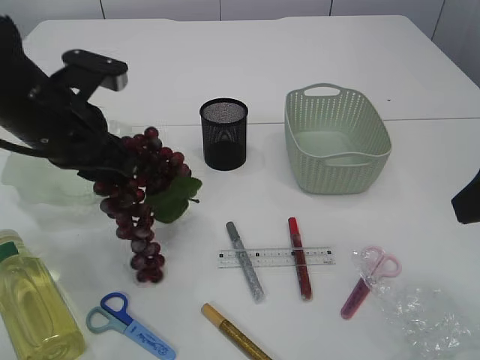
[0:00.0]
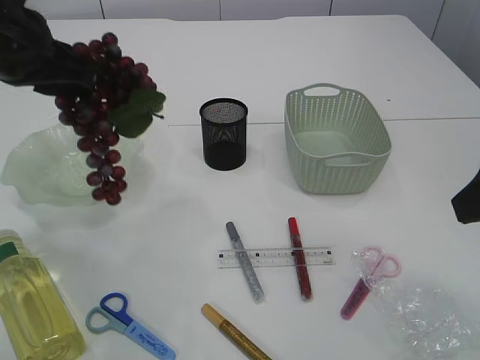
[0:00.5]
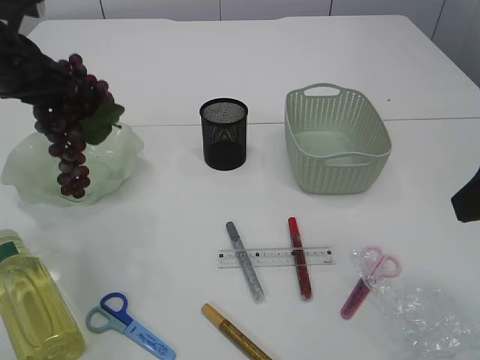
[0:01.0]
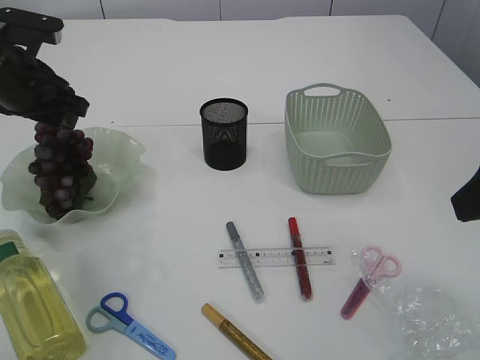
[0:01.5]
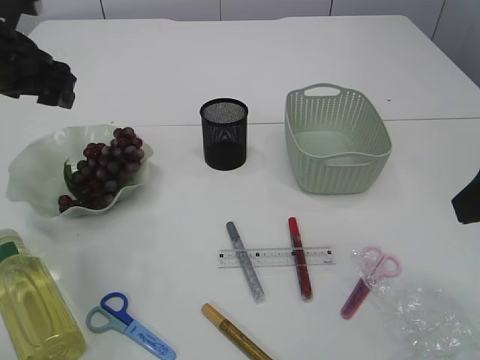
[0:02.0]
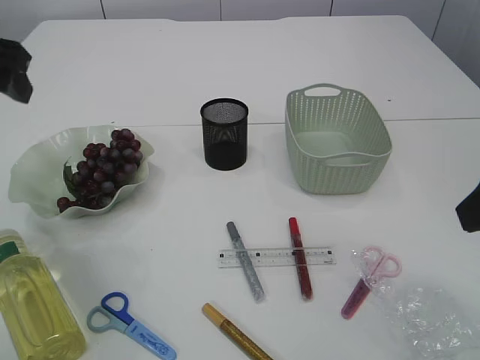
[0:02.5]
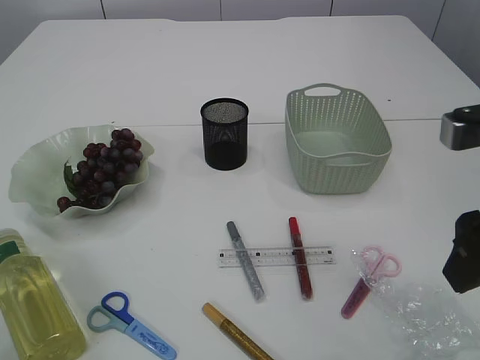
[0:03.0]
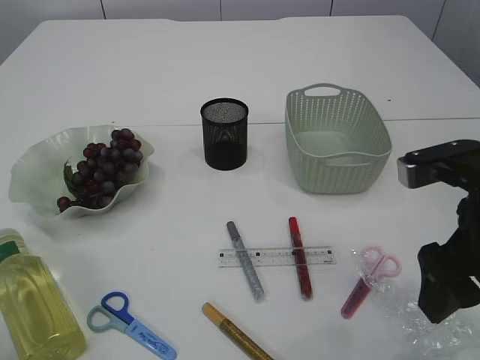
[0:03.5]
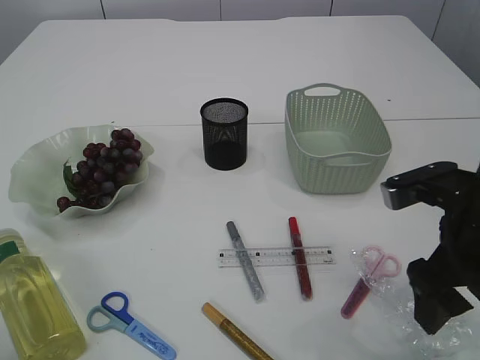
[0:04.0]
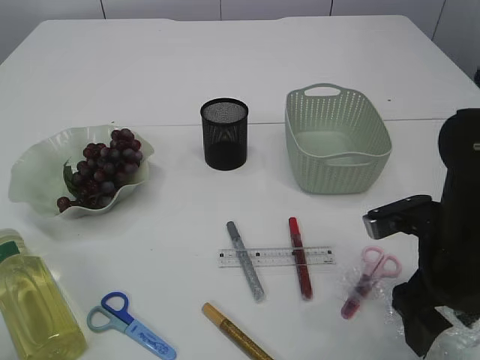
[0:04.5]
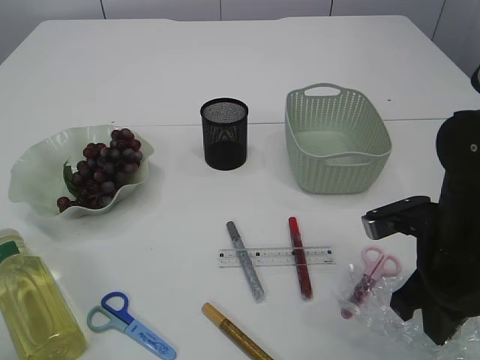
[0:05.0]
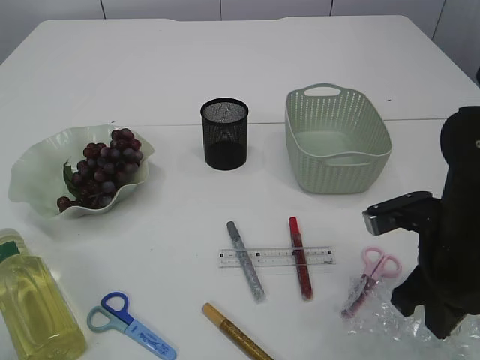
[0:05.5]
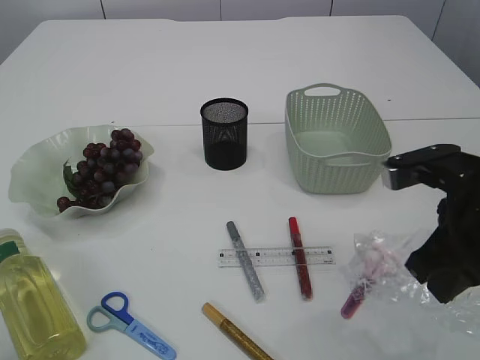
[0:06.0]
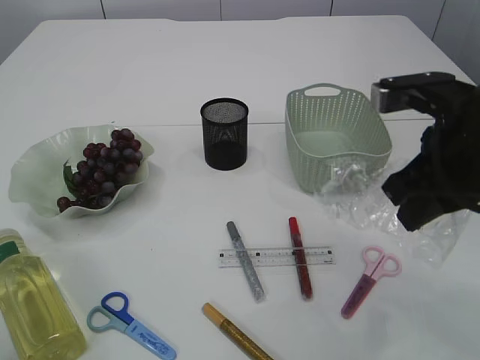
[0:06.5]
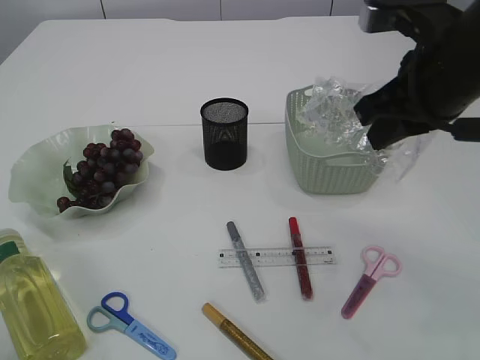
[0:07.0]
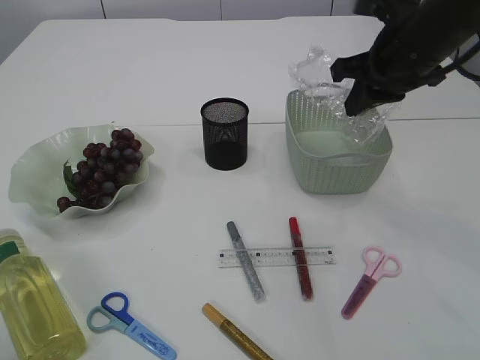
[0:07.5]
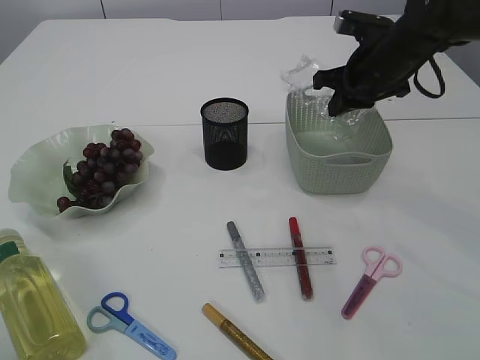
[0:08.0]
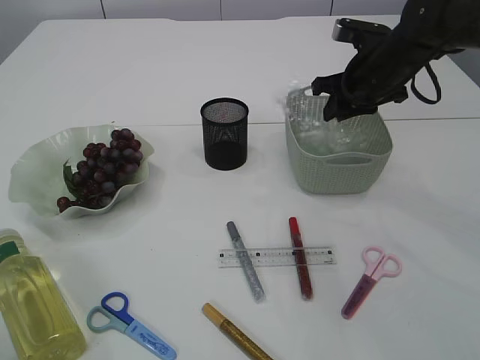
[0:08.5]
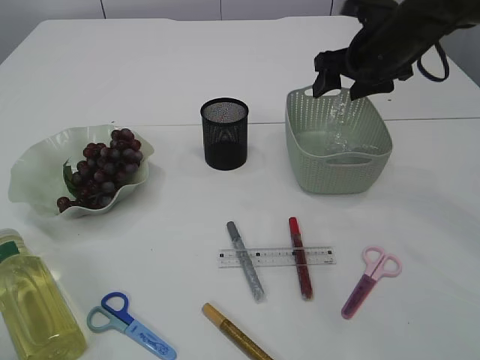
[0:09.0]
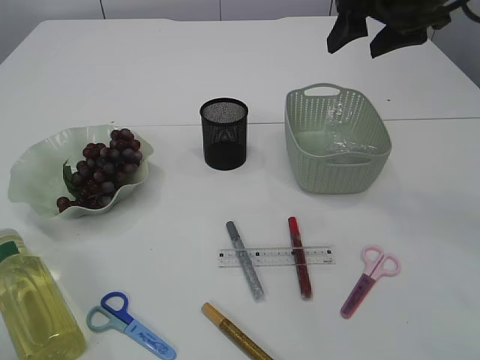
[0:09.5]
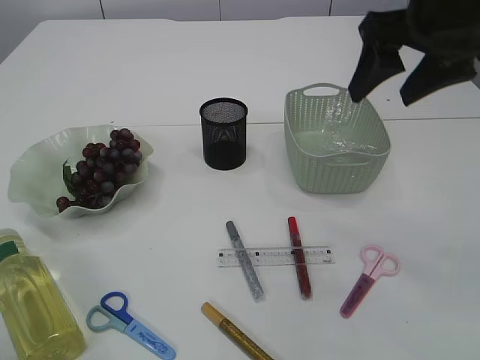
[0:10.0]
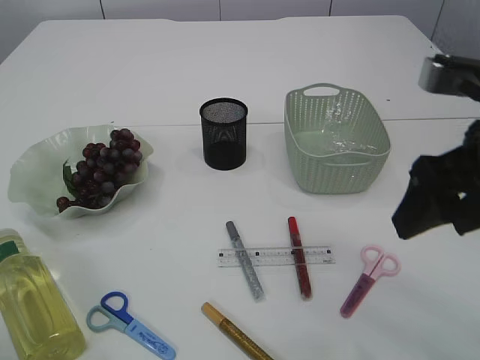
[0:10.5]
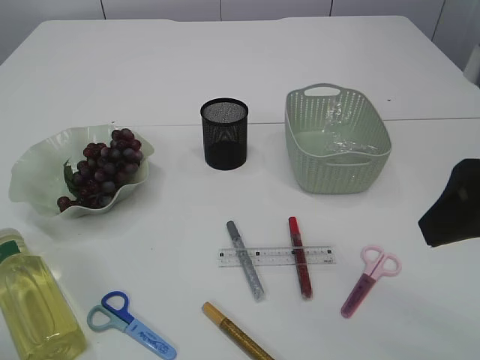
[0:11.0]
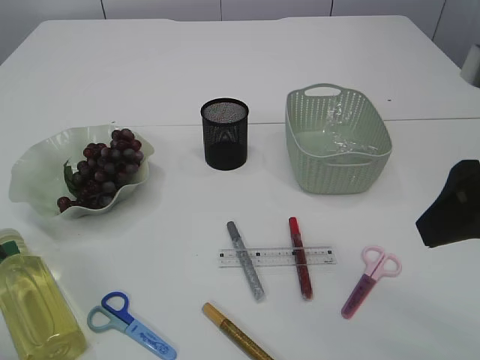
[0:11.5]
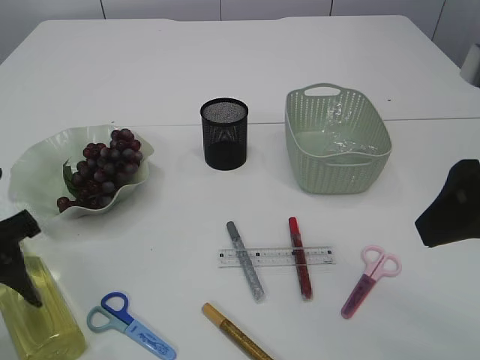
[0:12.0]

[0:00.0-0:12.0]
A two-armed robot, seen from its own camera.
Step, 0.5 to 1.5 s: Place the grapes in the plate.
Step, 2.0 to 6.0 s: Pick up the plastic.
Step, 6.5 to 9.0 s: Place the plastic in the basket.
0.0 to 2.0 s: The left gripper travels to the left and forward by roughly 10 cm, and opens.
2.0 to 4.0 s: The left gripper shifts some 15 cm backward. The right gripper goes approximately 10 cm downward.
4.0 to 6.0 s: The right gripper closes.
6.0 to 8.0 s: The right gripper travels forward by some 25 cm.
8.0 to 10.0 s: The right gripper goes approximately 20 cm backward and upward, and opens up.
10.0 to 12.0 s: The left gripper moves downward, approximately 10 cm, while the right gripper goes some 15 cm backward.

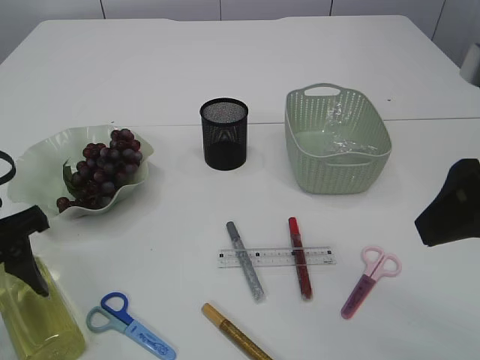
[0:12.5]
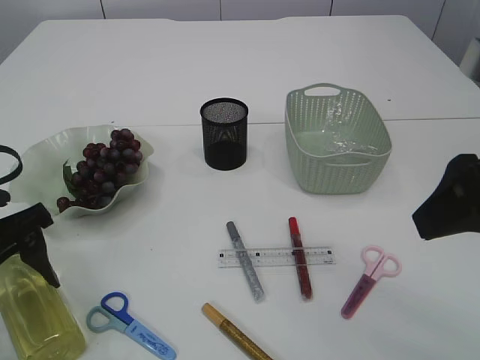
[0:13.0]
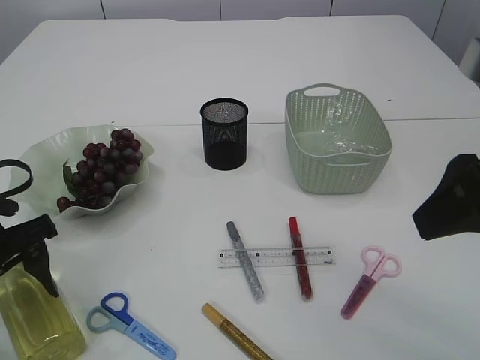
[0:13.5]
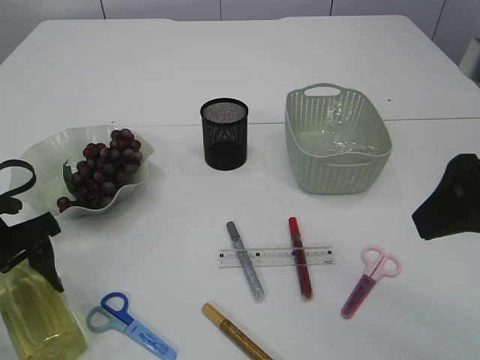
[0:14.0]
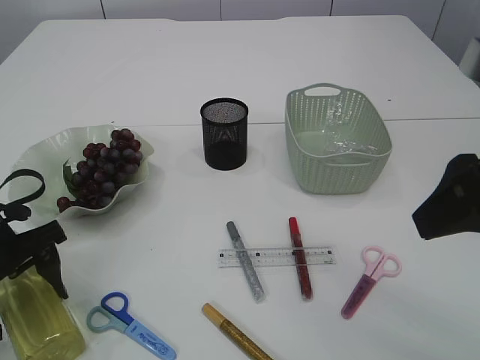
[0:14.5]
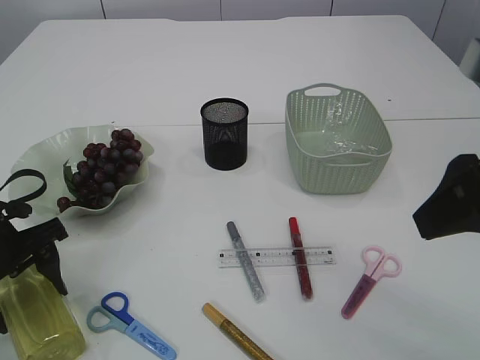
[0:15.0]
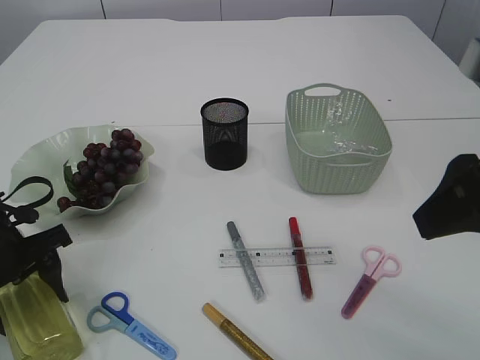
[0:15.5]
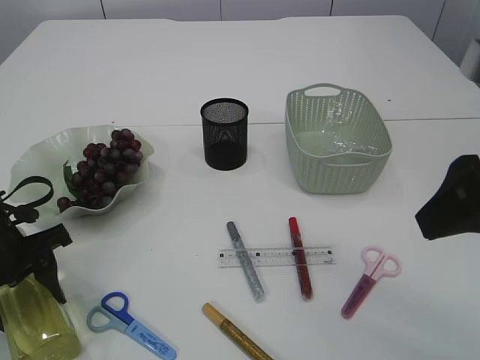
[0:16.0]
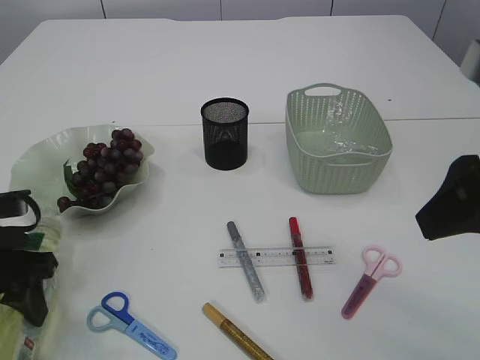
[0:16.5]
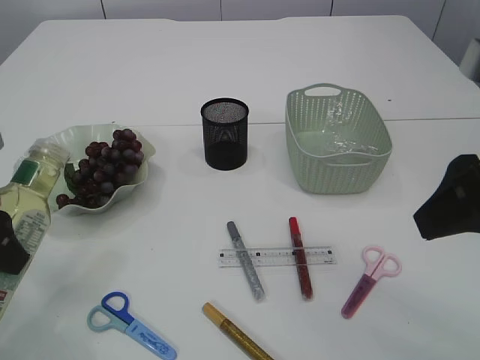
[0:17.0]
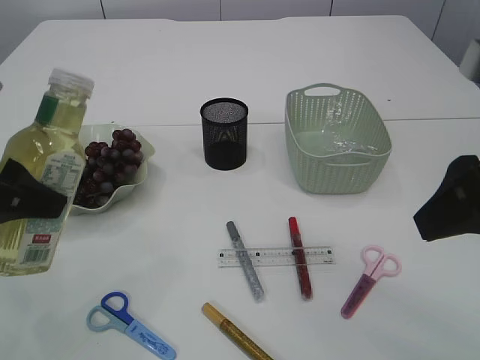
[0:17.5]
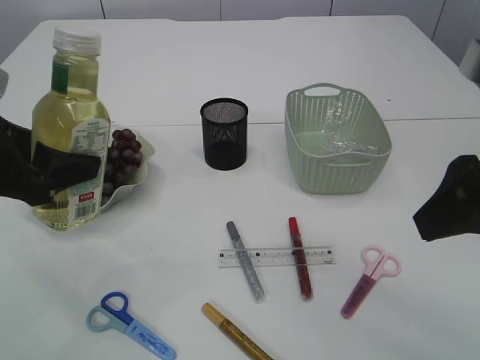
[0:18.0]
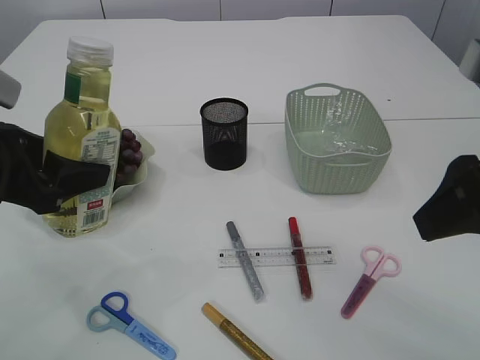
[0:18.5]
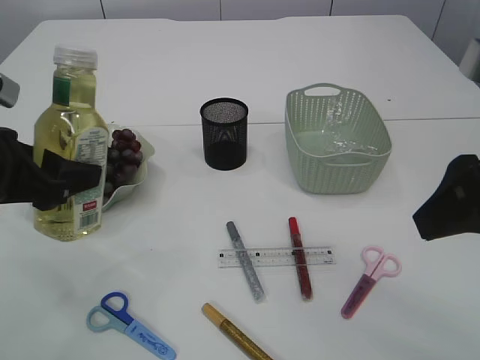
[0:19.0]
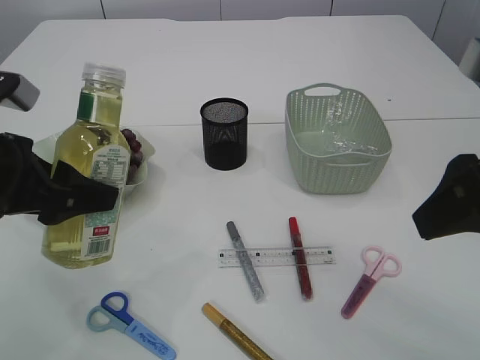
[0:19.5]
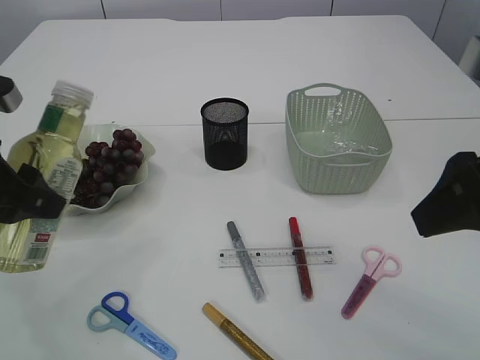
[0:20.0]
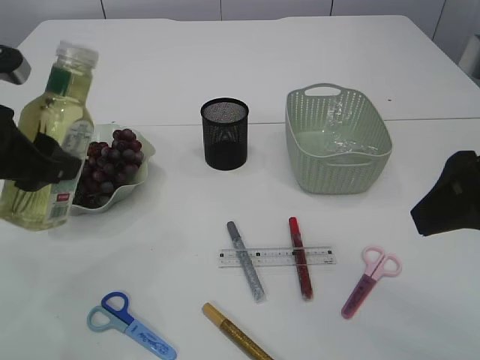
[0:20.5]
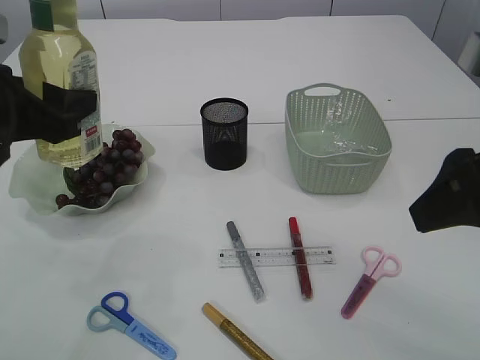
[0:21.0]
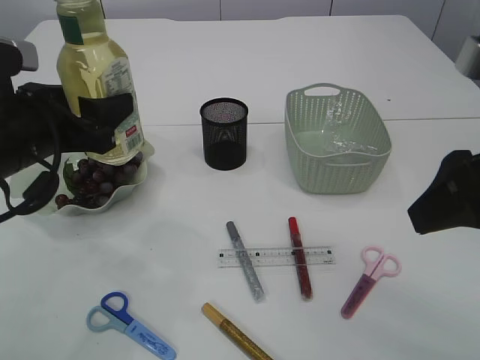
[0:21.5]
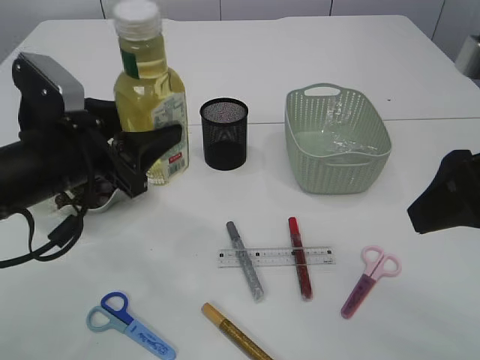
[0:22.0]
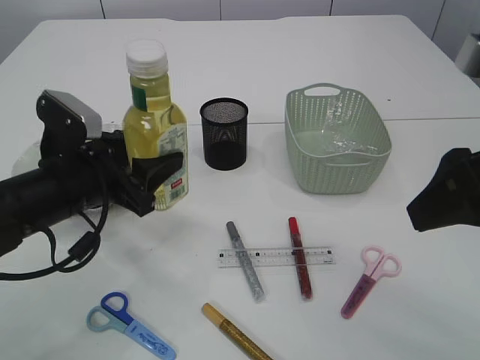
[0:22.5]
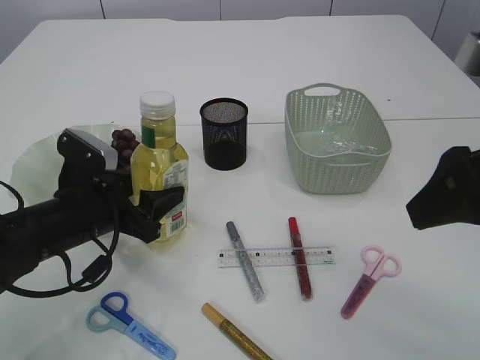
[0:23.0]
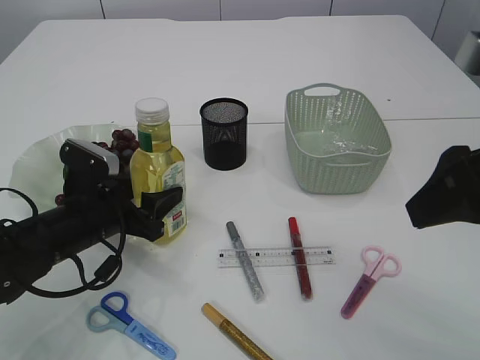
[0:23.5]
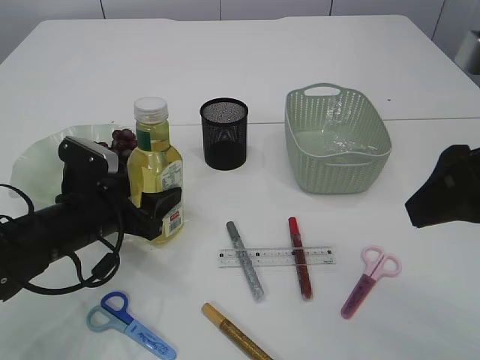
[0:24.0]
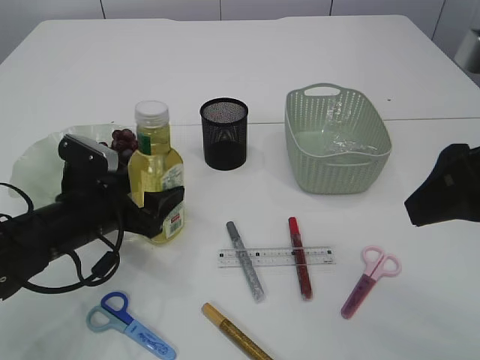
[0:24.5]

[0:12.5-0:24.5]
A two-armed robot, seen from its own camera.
Step, 12.5 to 17.0 s: Pick up the bottle with the left arm.
12.5 to 14.5 s: The left gripper shifts by roughly 5 cm.
16.5 to 18.5 s: The left gripper travels upward by some 10 cm.
20.5 to 22.5 s: The left gripper is displaced downward and to the right by approximately 10 cm.
22.5 to 24.5 s: The left gripper heads downward, covering approximately 5 cm.

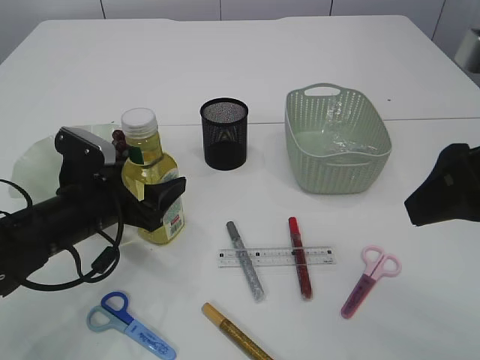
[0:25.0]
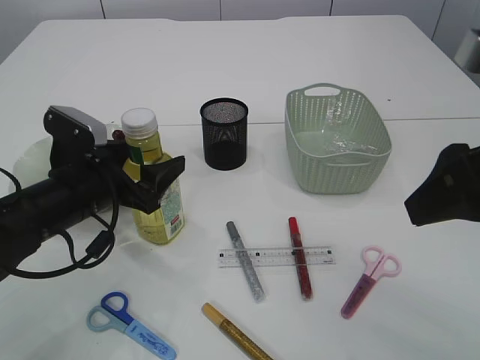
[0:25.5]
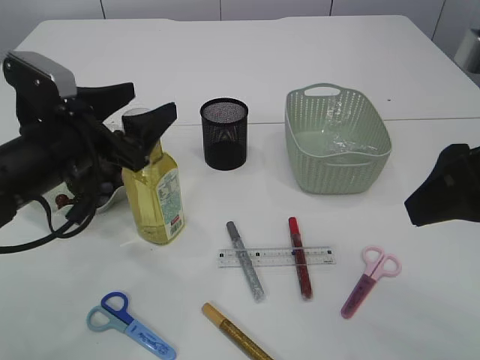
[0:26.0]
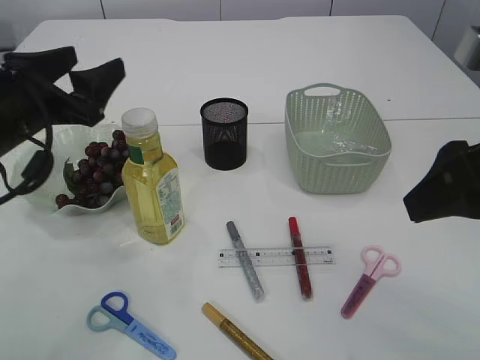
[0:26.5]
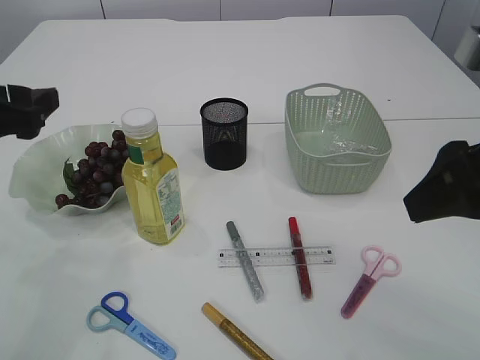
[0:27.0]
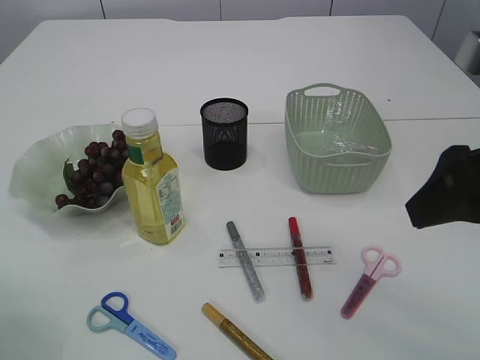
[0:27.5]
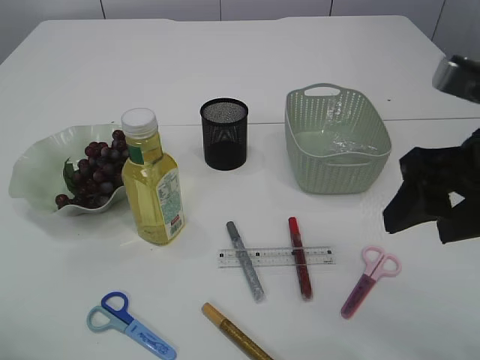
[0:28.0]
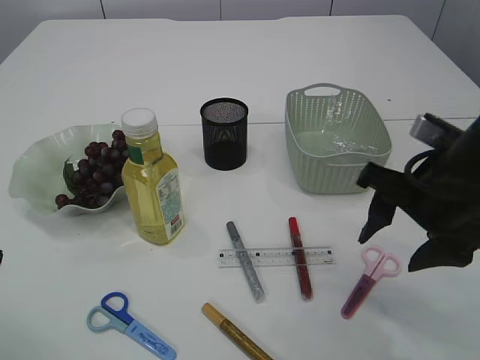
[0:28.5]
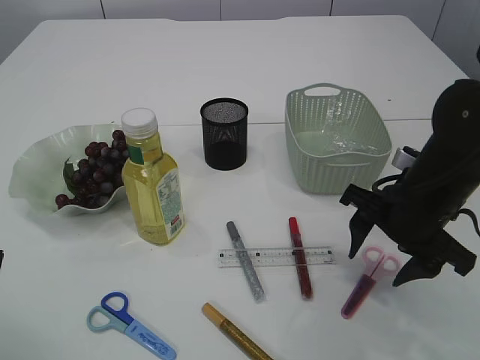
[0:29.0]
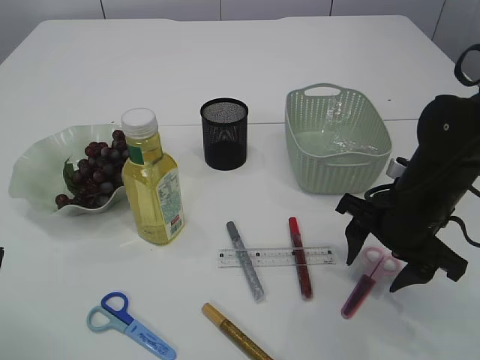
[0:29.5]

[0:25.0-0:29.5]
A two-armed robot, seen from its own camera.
25.0 to 27.0 s: The left gripper goes about 15 cm upward and to the left.
27.0 to 29.5 s: The right gripper travels downward and forward by some 20 cm; the left gripper shifts roughly 10 cm backward.
